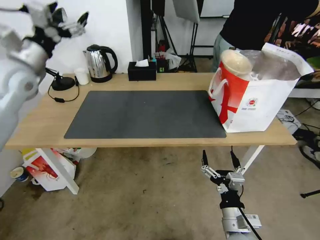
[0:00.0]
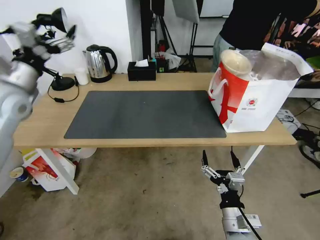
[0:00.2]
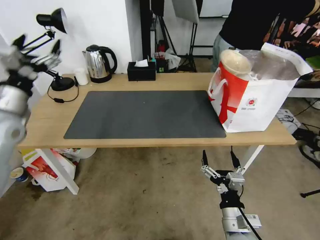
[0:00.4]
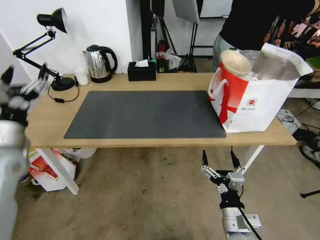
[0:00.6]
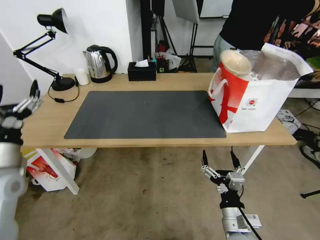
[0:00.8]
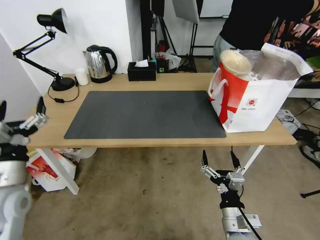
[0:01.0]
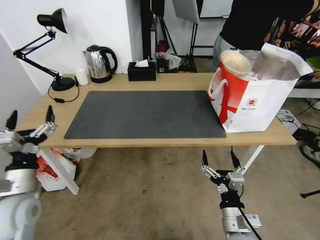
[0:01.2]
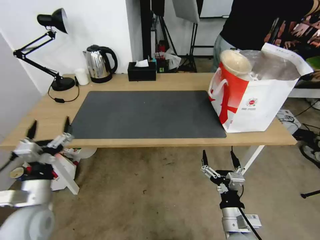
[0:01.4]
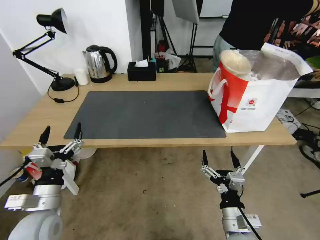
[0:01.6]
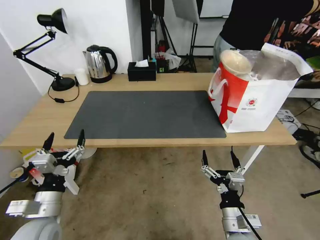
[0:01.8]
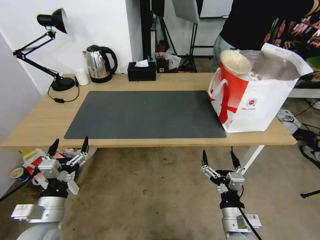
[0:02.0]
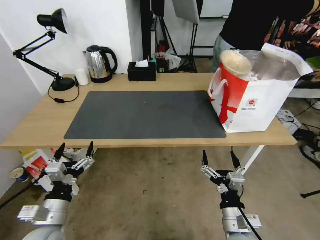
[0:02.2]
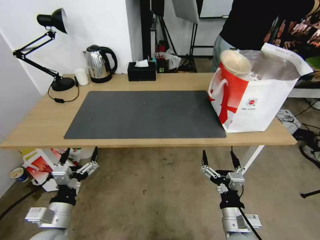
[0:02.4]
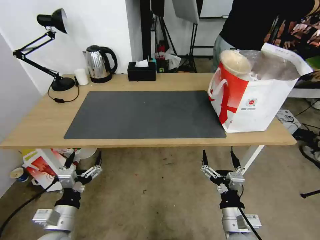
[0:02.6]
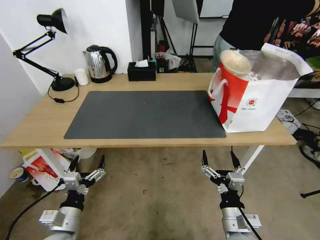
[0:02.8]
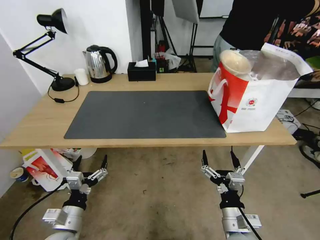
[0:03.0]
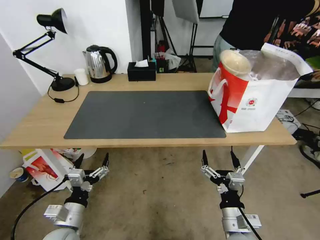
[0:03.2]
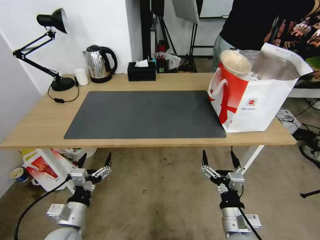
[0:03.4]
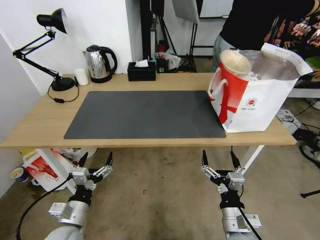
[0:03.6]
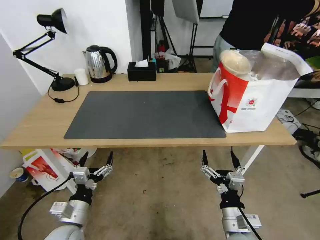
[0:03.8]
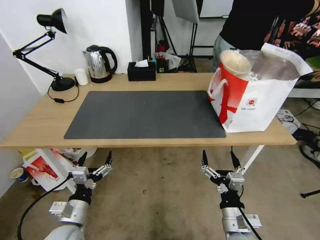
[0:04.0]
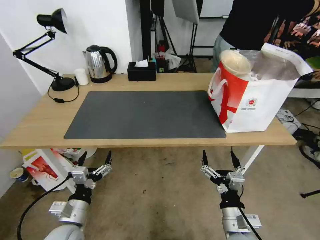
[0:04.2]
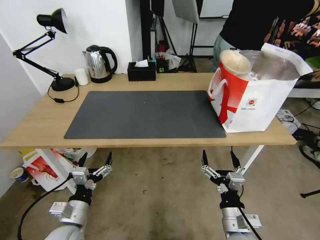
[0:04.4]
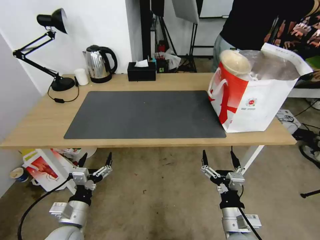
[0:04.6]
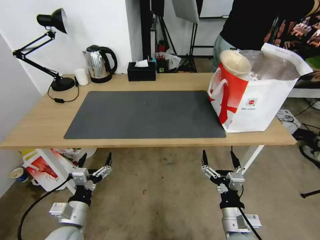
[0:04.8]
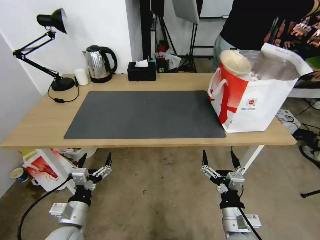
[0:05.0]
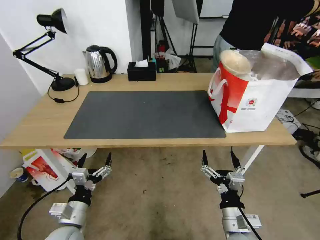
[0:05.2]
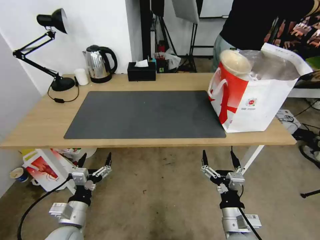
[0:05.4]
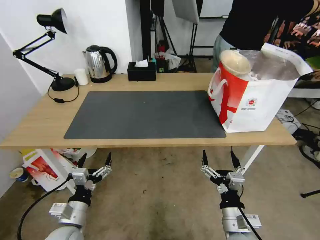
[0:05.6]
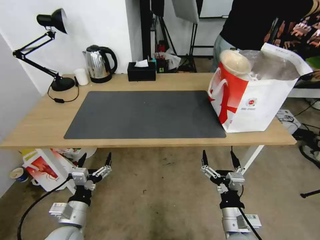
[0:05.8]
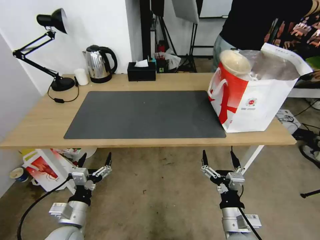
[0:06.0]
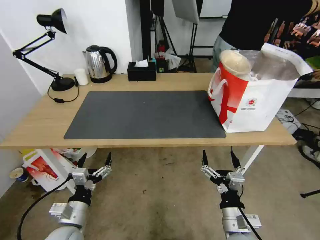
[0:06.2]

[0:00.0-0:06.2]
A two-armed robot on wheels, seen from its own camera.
Task of the whole recording: Pick up the trash from the table and place it into the takeout bag.
0:00.0 to 0:01.6: The left gripper moves downward and backward, some 40 cm.
0:01.6 to 0:03.2: The left gripper heads downward, covering roughly 10 cm.
0:03.2 to 0:06.2: Both grippers stay about where they are.

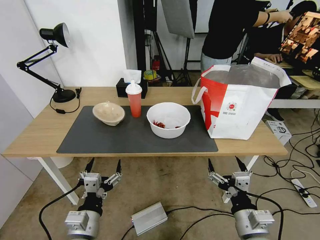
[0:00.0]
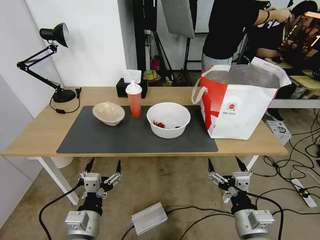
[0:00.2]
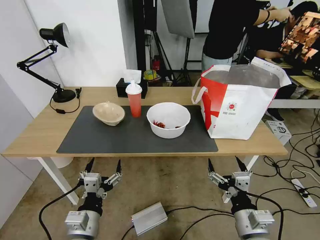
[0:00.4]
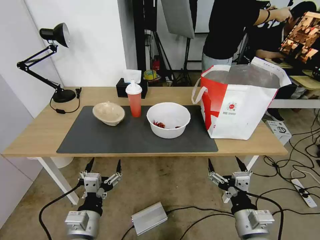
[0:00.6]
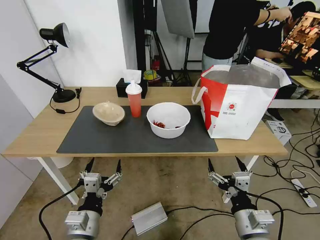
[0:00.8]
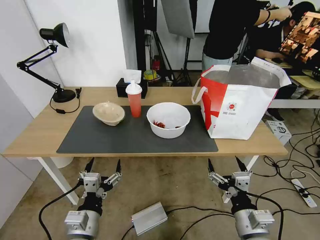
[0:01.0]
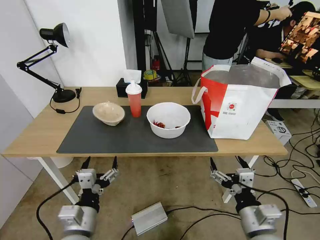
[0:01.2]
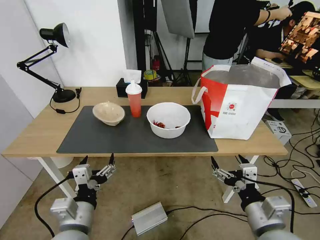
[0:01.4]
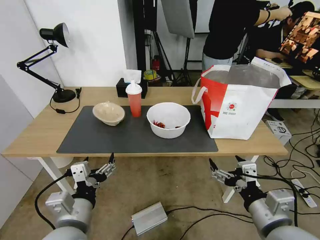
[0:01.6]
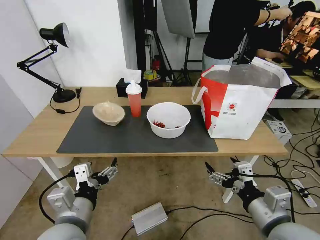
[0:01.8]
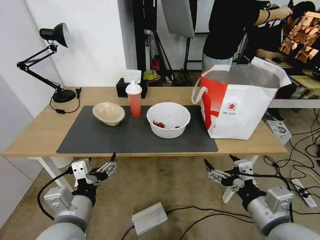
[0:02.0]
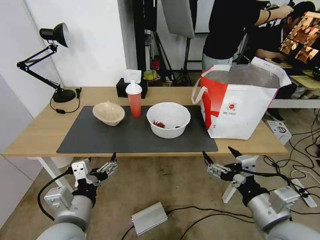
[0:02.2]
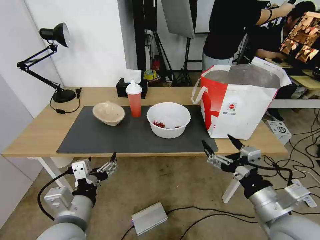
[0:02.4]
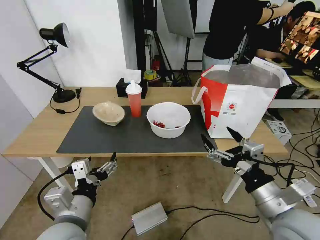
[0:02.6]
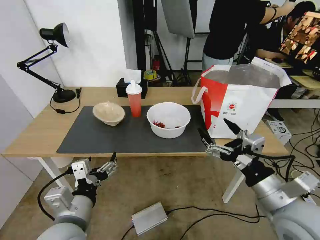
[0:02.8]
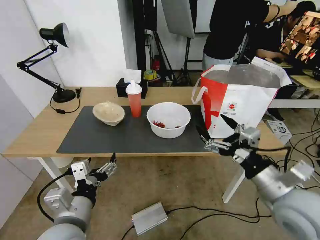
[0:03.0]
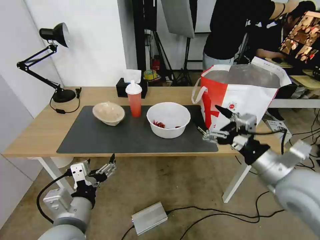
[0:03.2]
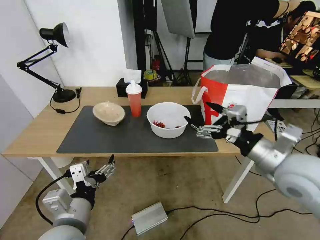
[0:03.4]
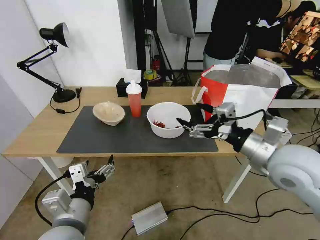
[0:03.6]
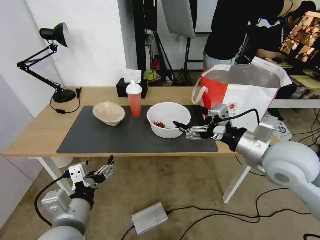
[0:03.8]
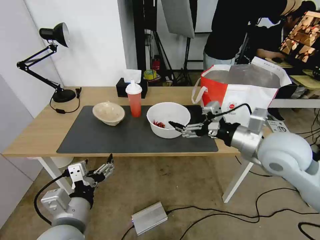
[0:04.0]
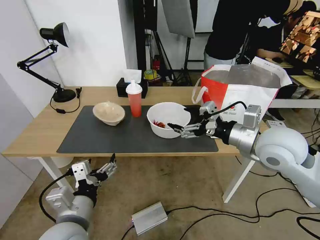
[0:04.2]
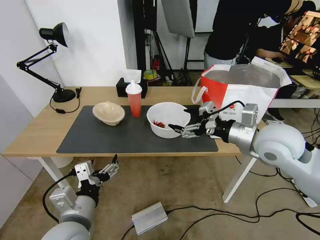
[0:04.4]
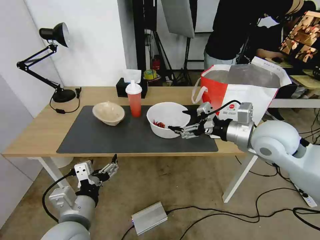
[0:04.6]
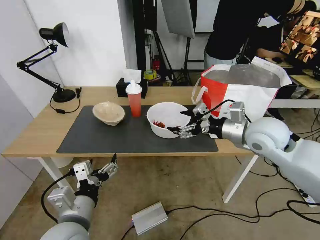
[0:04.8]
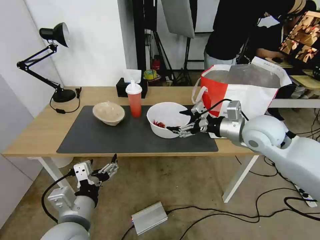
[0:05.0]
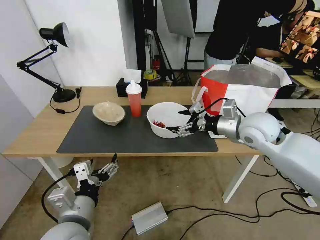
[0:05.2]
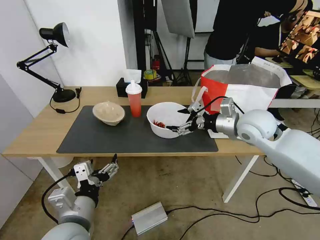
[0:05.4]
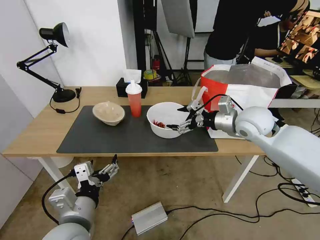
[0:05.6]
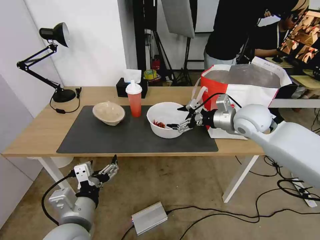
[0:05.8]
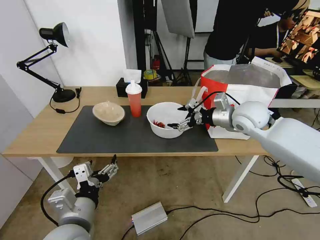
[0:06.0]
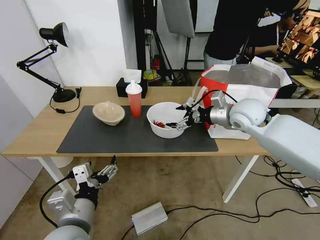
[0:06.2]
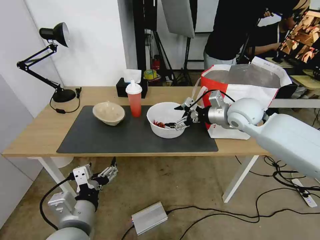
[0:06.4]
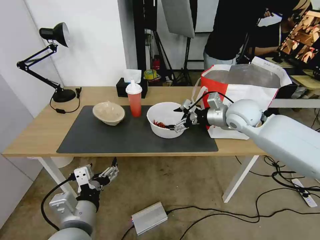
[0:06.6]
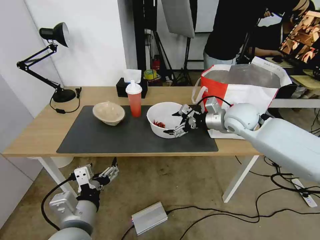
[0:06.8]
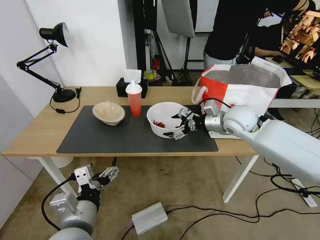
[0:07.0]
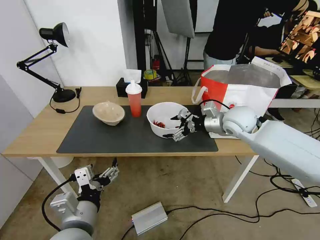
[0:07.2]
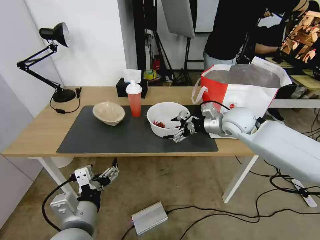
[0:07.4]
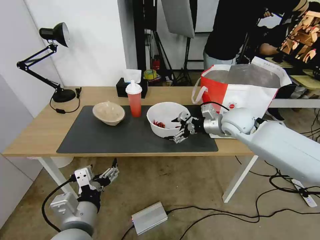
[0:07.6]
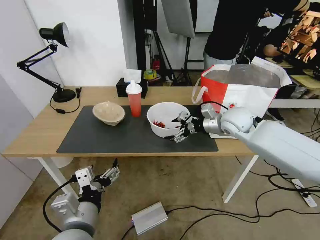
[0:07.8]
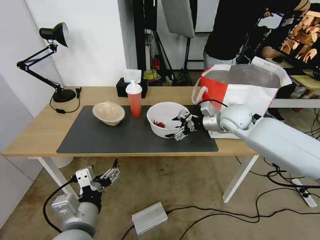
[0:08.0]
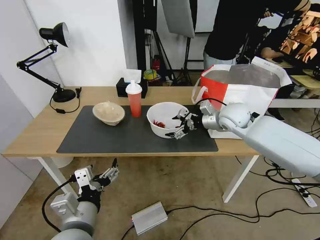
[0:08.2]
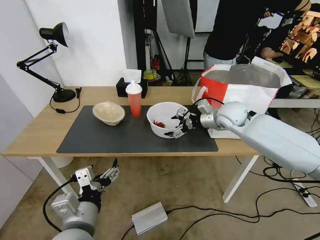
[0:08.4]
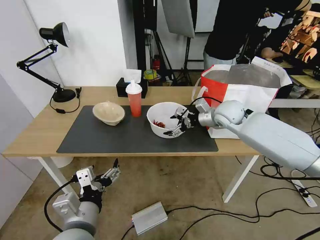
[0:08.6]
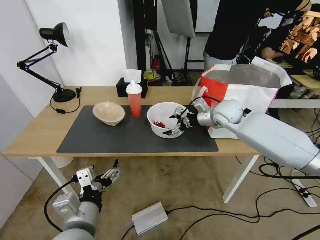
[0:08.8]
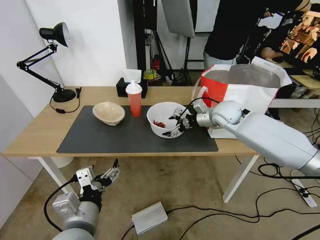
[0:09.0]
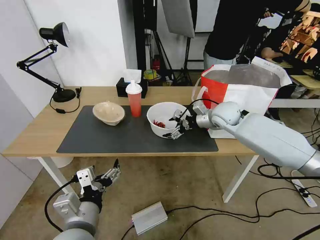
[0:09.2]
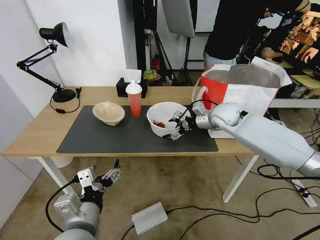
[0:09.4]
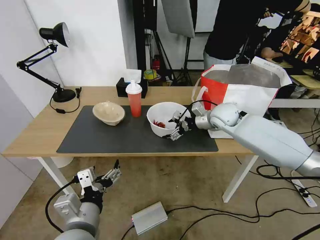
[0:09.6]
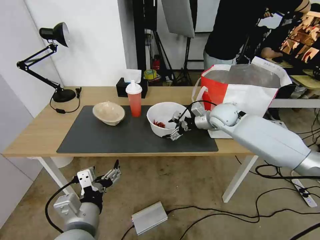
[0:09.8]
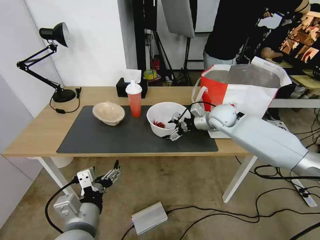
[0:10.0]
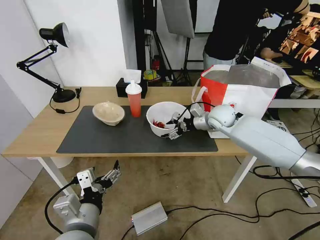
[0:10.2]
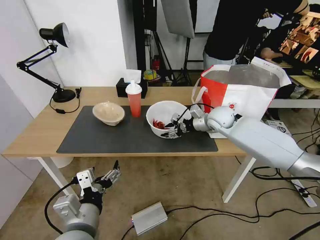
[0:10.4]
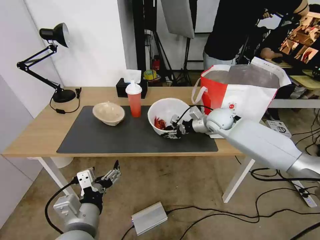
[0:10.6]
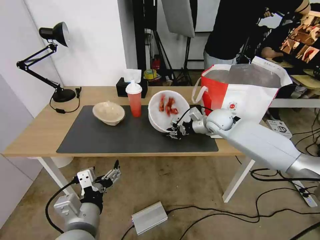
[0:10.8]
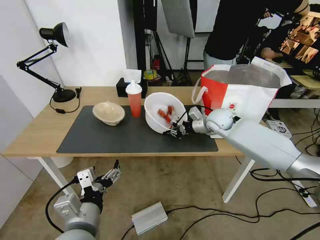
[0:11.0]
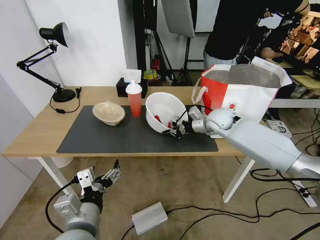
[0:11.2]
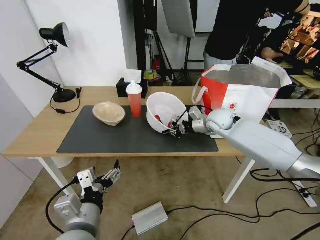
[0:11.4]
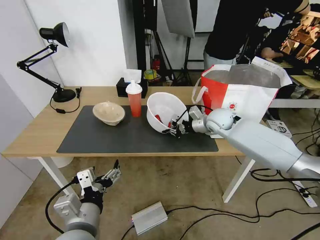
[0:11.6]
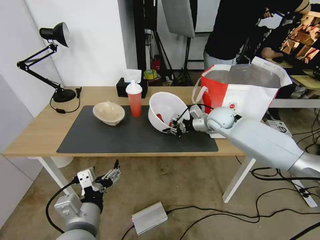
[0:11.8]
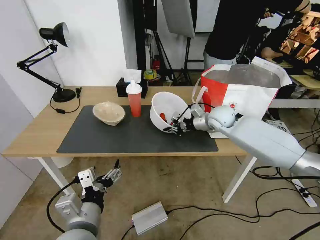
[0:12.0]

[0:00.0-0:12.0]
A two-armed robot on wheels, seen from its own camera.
Task of the whole recording: Pick up the trash from the table and place it into the takeout bag.
0:01.6 to 0:03.0: The right gripper is displaced forward by about 5 cm.
0:03.0 to 0:04.4: The right gripper moves forward and upward, roughly 15 cm.
0:04.4 to 0:06.0: The right gripper shifts some 10 cm forward.
0:06.0 to 0:07.6: The grippers stay close to where they were, moving slightly.
0:07.6 to 0:09.0: The right gripper heads forward, covering about 5 cm.
0:09.0 to 0:10.4: The right gripper closes its fingers.
0:10.4 to 0:12.0: The right gripper closes.

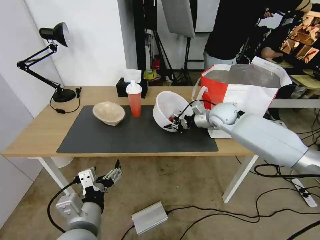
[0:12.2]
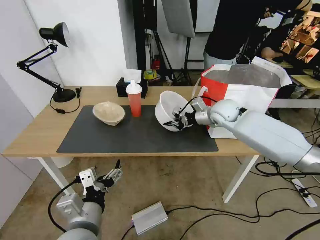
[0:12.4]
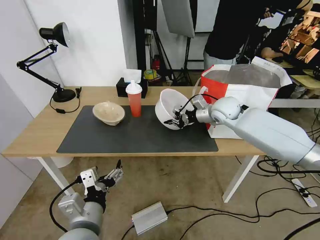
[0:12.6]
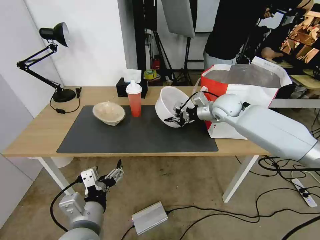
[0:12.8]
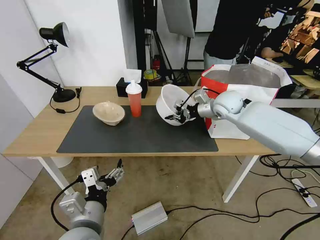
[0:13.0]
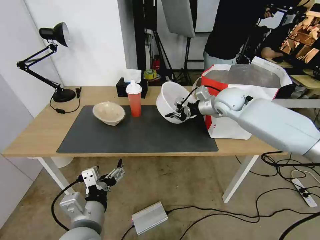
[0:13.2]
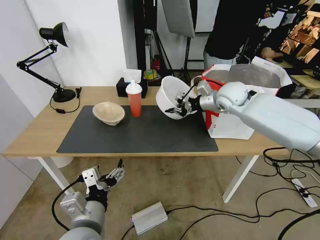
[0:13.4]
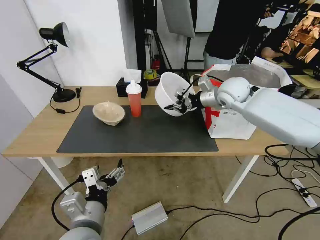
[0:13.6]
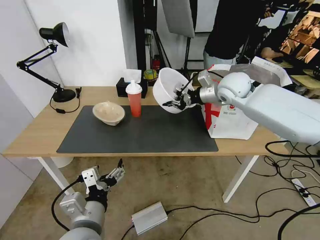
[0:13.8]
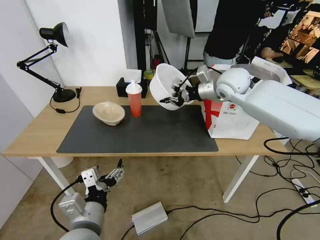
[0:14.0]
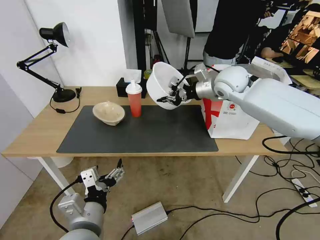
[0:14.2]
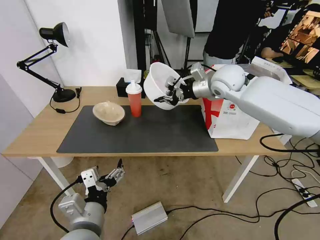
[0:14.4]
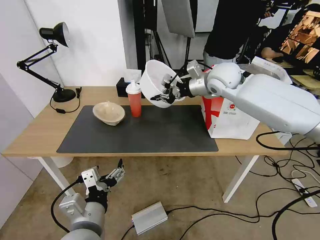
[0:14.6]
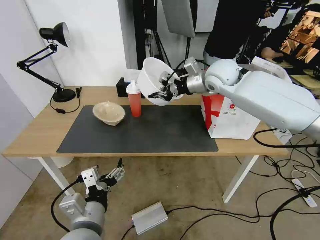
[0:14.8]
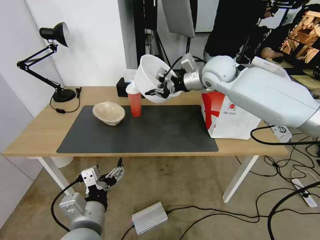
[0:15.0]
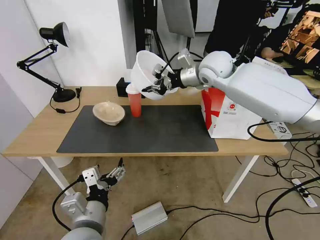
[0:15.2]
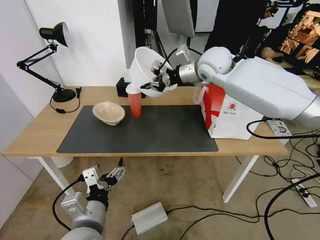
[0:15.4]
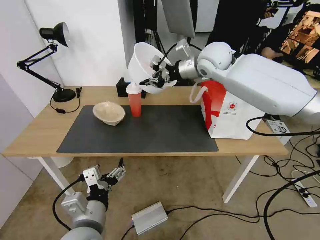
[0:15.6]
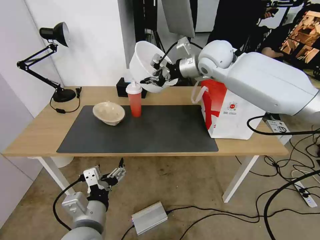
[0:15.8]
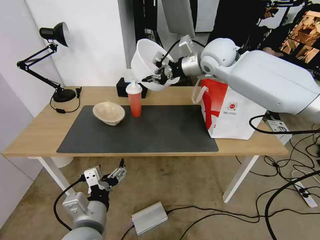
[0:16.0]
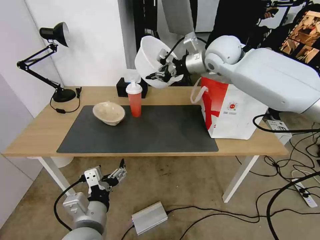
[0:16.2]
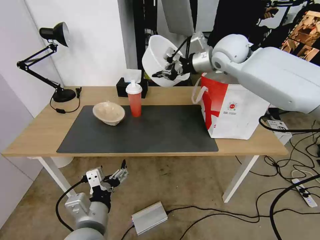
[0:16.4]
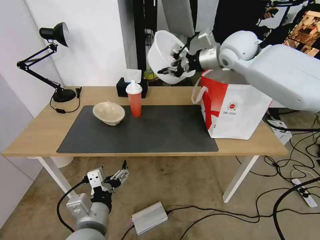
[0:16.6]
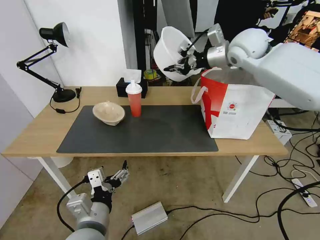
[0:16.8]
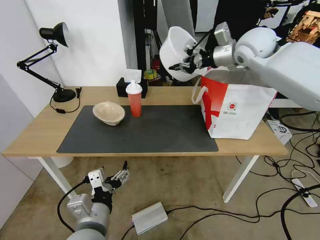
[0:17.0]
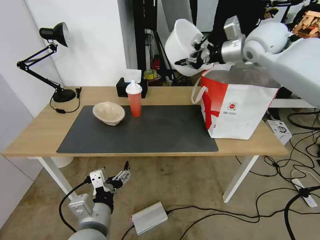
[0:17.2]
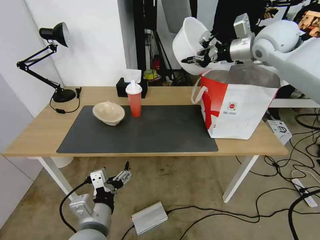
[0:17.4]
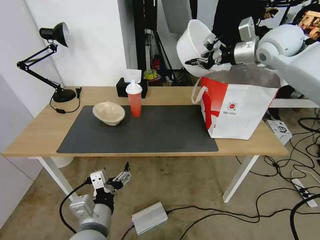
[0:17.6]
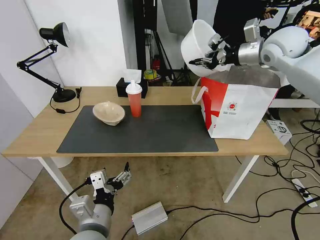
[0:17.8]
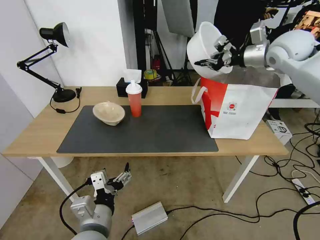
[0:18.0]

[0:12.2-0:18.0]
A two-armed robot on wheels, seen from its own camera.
Task of the whole recording: Pick up the trash from the table and place it into the takeout bag.
0:12.2 to 0:13.6: The right gripper moves upward, some 10 cm.
0:13.6 to 0:15.0: The right gripper moves to the left and upward, about 10 cm.
0:15.0 to 0:16.6: The right gripper heads upward, covering roughly 5 cm.
0:16.6 to 0:18.0: The right gripper moves to the right, approximately 15 cm.
